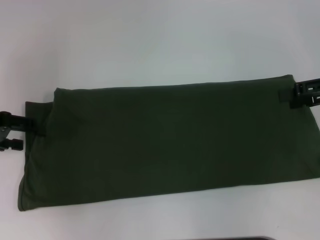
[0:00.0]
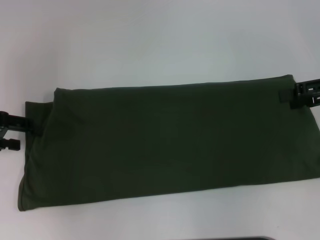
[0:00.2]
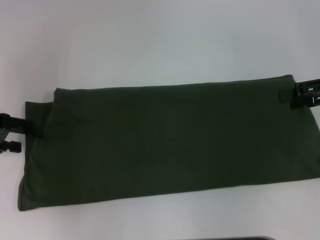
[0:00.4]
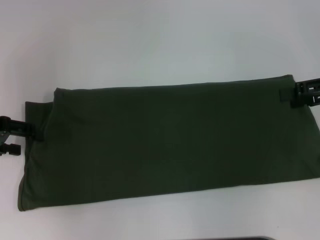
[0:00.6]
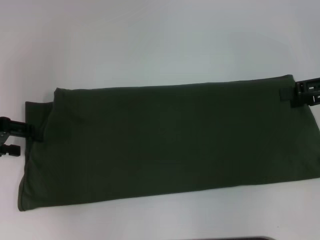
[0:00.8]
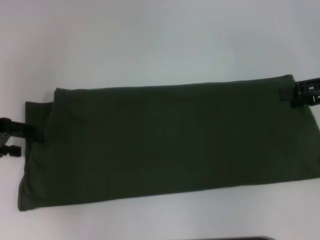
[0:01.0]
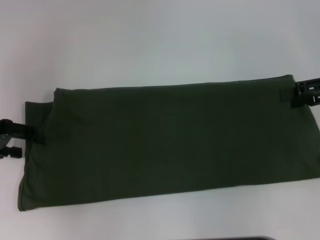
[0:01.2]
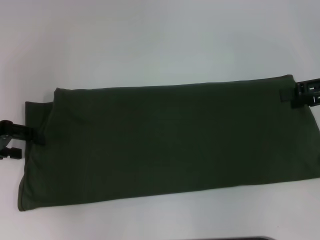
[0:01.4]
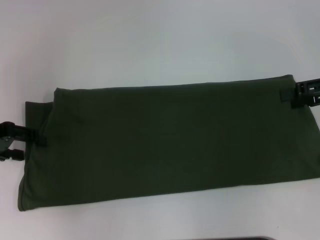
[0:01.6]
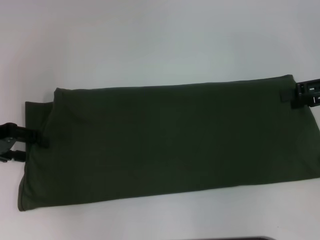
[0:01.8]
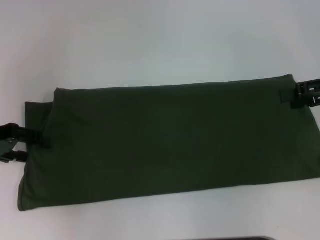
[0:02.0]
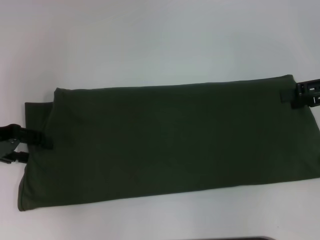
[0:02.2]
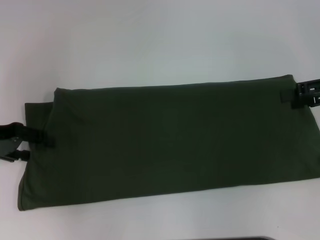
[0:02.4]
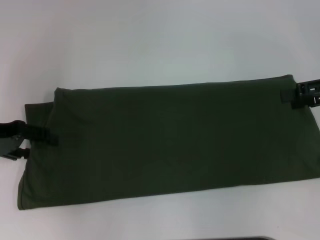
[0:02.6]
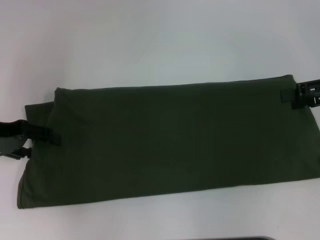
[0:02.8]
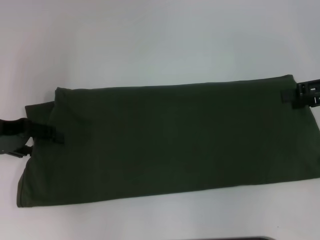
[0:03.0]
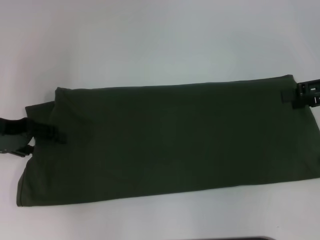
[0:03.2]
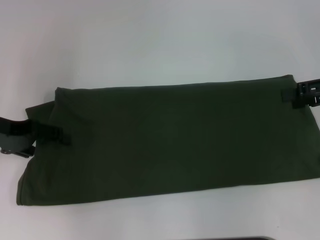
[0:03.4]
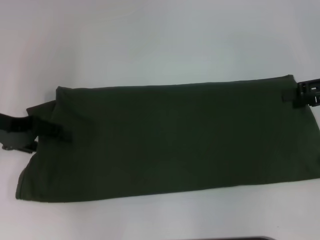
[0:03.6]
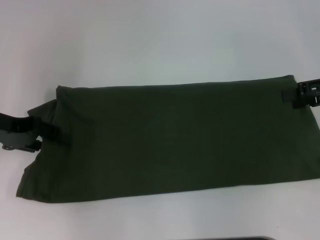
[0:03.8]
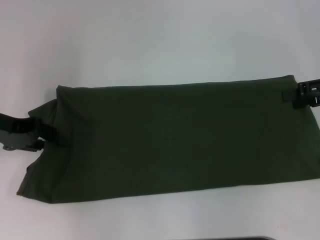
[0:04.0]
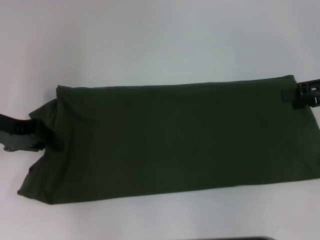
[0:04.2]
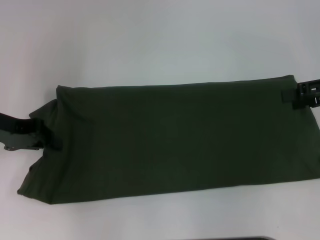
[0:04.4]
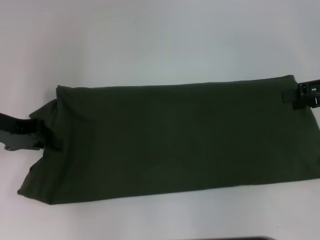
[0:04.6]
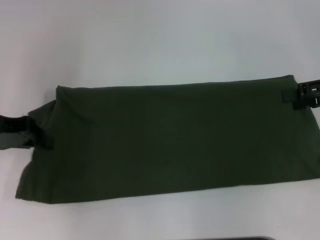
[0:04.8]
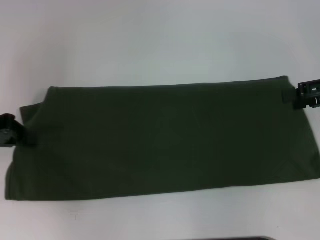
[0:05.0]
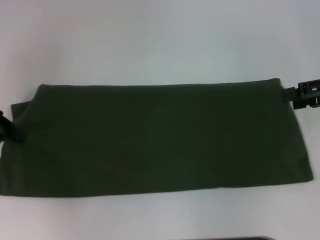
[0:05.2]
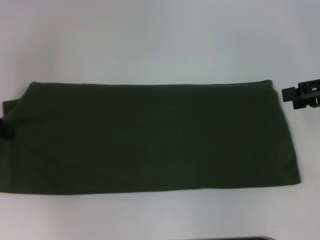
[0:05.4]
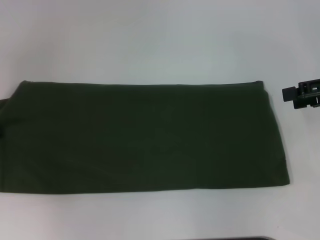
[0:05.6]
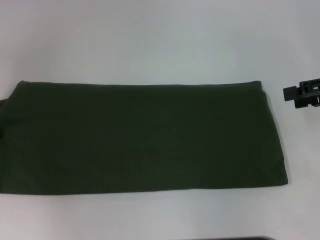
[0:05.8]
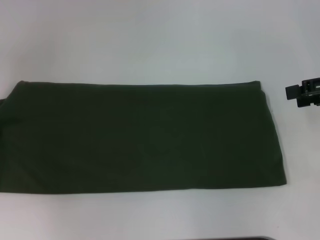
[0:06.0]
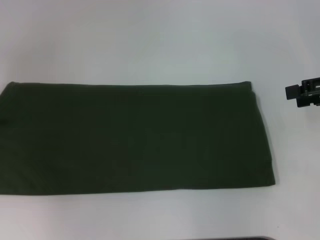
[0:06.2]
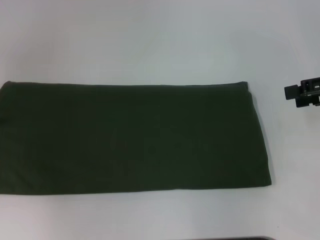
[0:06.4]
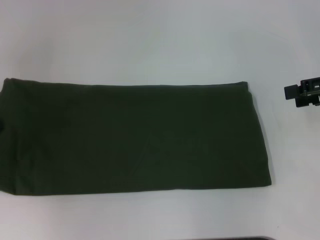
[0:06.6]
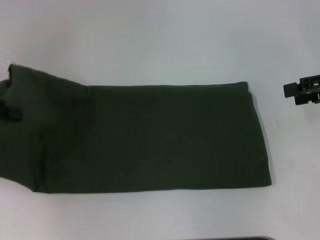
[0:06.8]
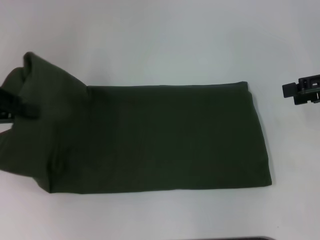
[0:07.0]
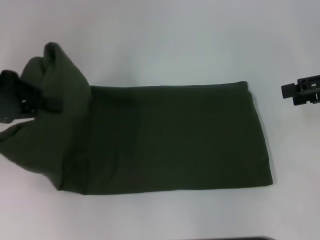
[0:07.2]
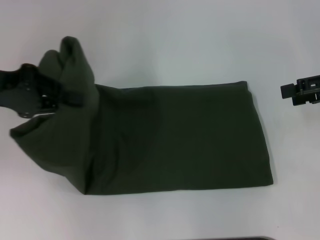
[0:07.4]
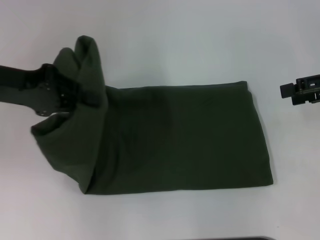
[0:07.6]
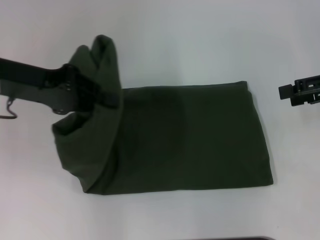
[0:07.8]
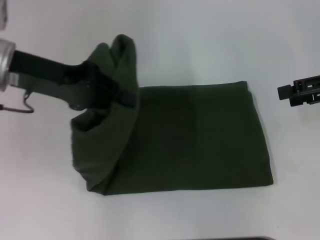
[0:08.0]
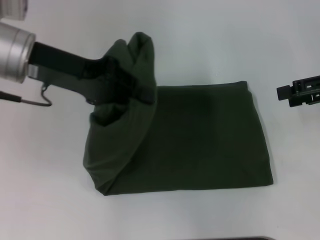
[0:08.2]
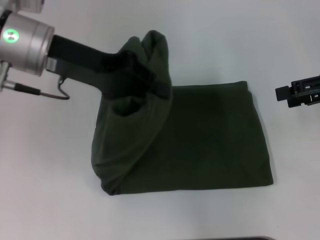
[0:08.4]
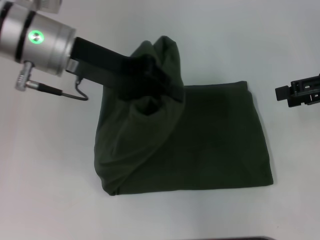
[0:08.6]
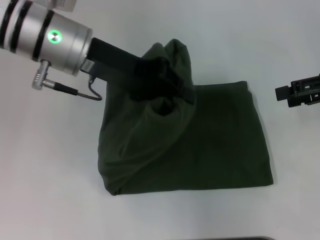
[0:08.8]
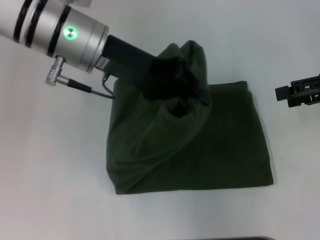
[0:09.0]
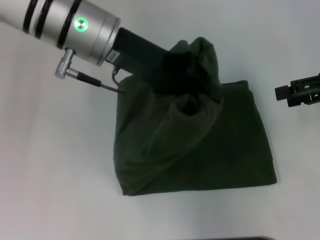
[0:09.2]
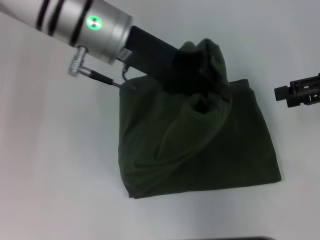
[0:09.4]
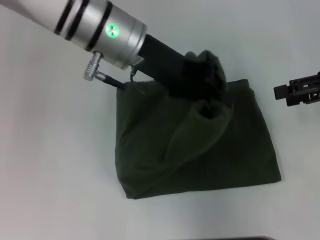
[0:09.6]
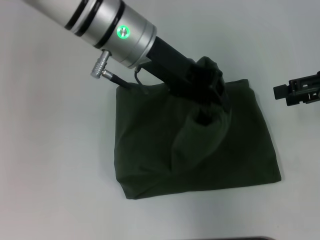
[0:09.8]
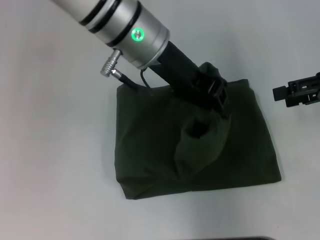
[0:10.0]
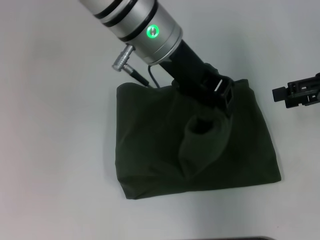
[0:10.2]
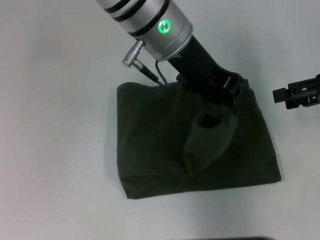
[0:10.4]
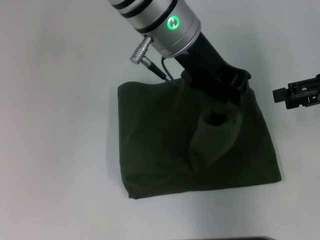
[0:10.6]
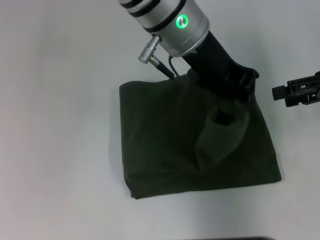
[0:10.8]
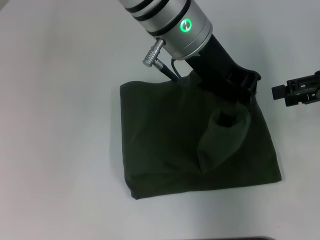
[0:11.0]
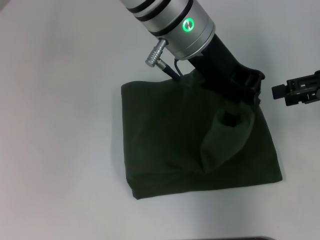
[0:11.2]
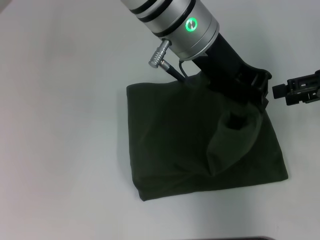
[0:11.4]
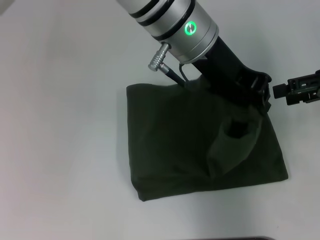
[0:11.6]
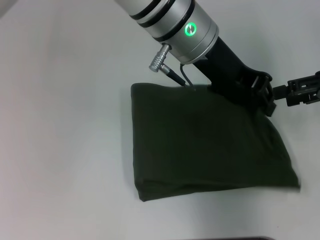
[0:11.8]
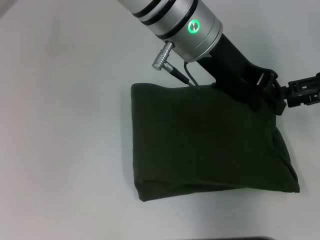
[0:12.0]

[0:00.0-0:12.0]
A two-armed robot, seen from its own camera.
Step, 0:00.0 to 0:11.8: Fold the clothes with your left hand.
0:00.0 to 0:01.6: Both grippers stay about where they are.
0:01.6 to 0:03.0: The grippers make only small movements.
0:03.0 to 0:04.4: The left gripper closes up.
0:04.4 to 0:06.0: The left gripper heads to the left, covering some 10 cm.
0:06.0 to 0:07.6: The left gripper shifts approximately 10 cm to the right.
0:07.6 to 0:09.0: The left gripper heads to the right, covering about 15 cm.
0:09.0 to 0:10.4: The left gripper shifts approximately 10 cm to the right.
0:10.4 to 0:12.0: The grippers move only a little.

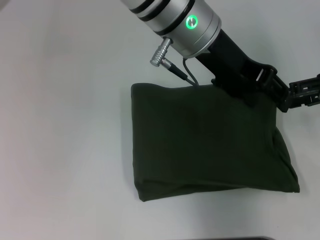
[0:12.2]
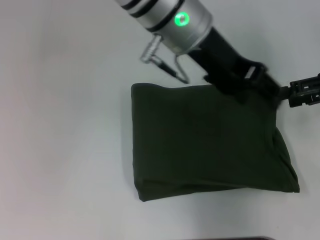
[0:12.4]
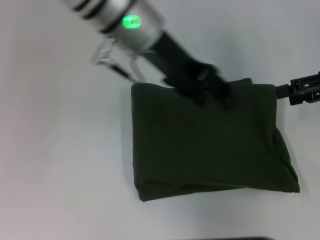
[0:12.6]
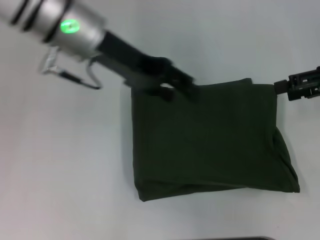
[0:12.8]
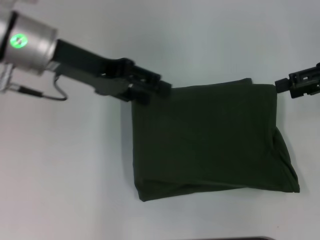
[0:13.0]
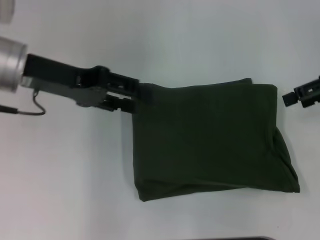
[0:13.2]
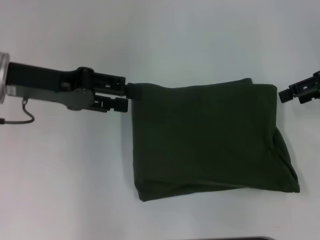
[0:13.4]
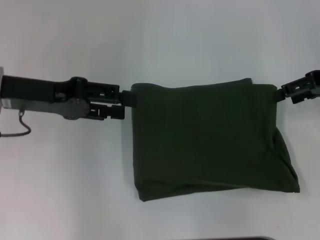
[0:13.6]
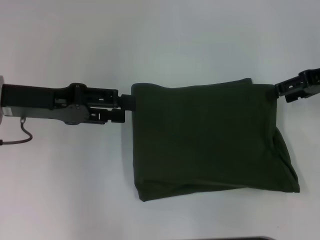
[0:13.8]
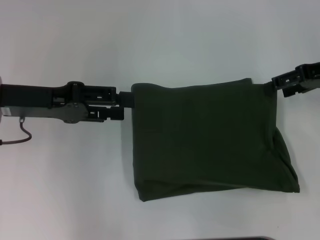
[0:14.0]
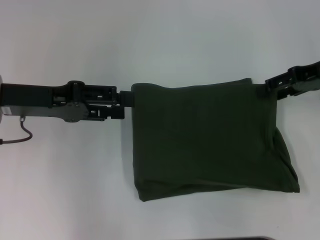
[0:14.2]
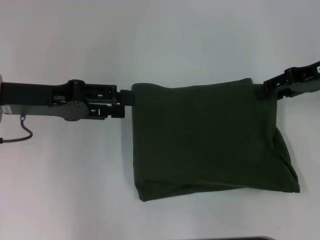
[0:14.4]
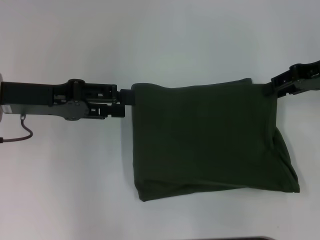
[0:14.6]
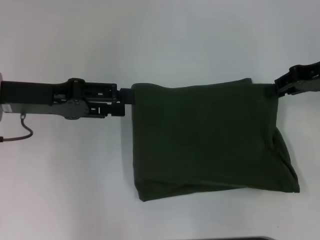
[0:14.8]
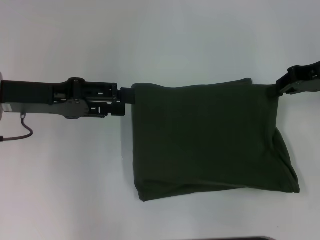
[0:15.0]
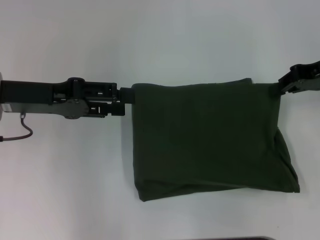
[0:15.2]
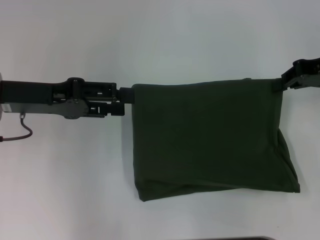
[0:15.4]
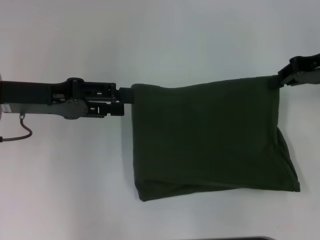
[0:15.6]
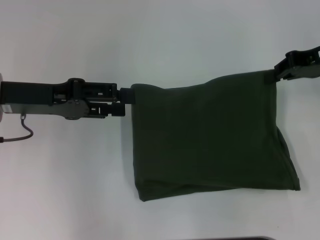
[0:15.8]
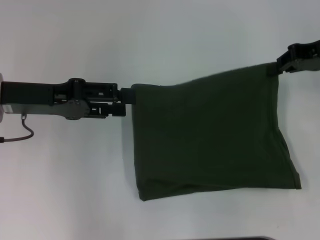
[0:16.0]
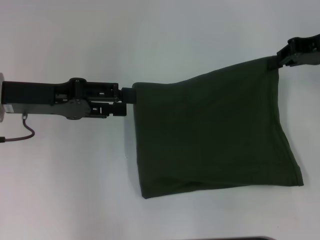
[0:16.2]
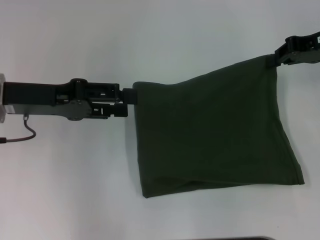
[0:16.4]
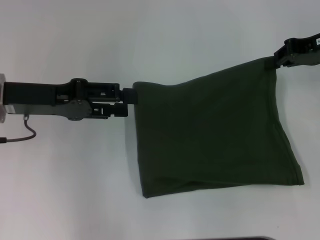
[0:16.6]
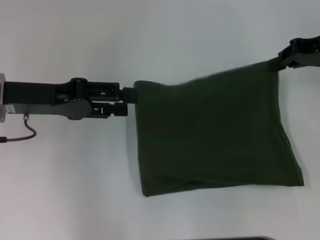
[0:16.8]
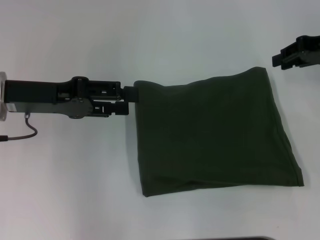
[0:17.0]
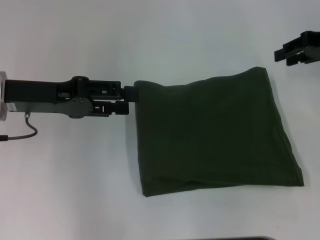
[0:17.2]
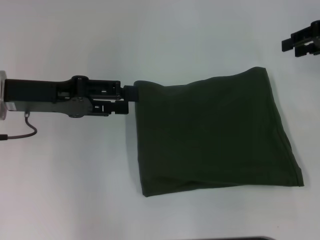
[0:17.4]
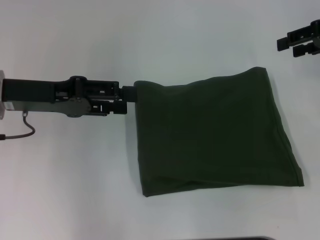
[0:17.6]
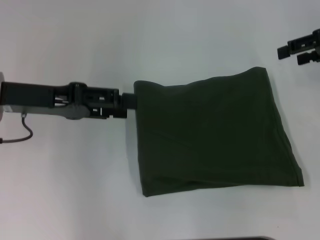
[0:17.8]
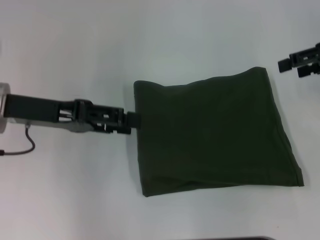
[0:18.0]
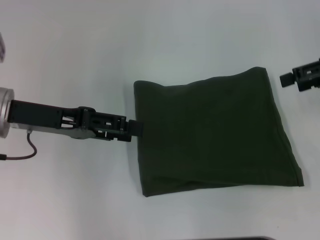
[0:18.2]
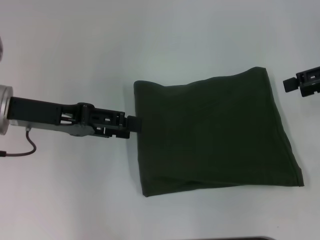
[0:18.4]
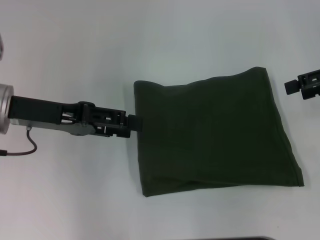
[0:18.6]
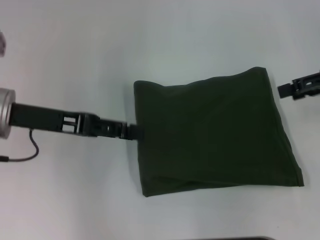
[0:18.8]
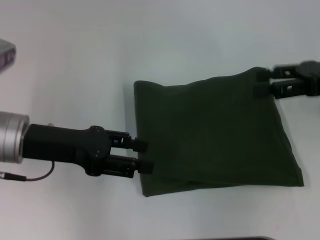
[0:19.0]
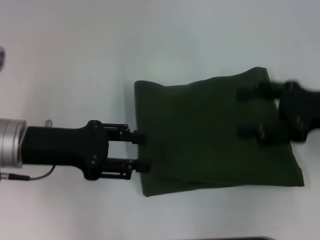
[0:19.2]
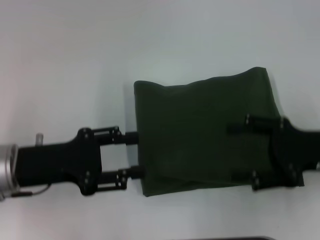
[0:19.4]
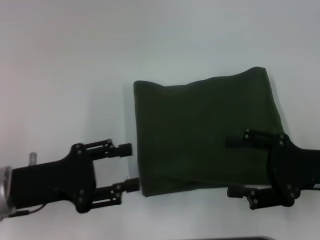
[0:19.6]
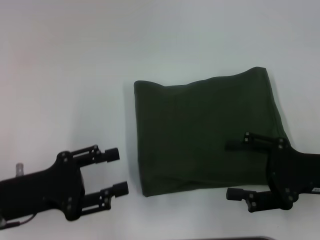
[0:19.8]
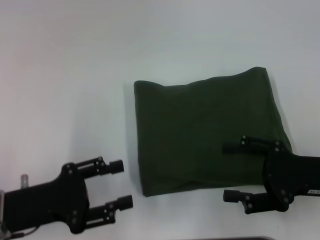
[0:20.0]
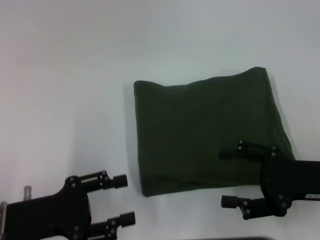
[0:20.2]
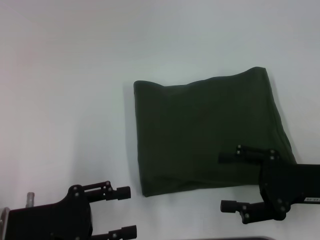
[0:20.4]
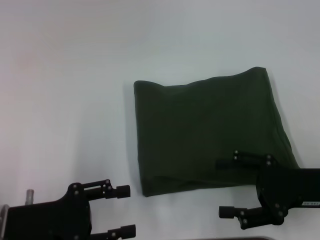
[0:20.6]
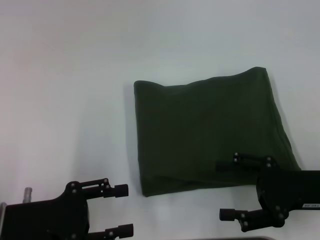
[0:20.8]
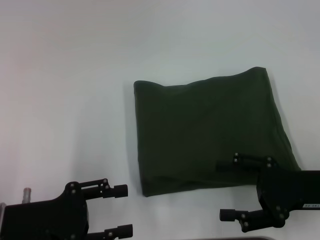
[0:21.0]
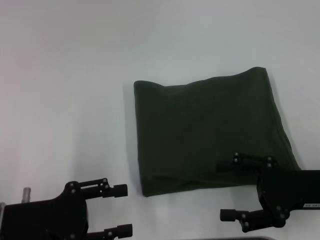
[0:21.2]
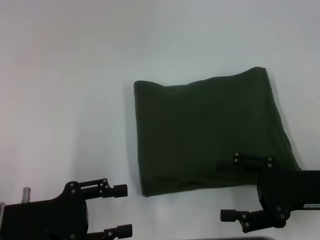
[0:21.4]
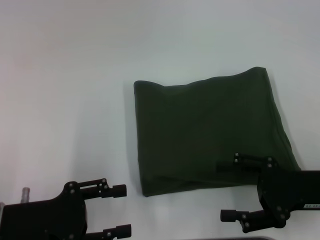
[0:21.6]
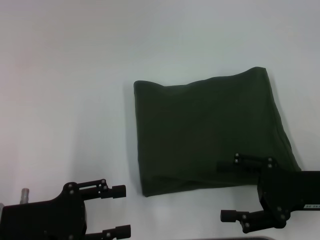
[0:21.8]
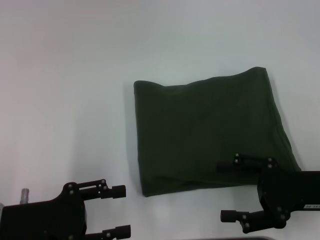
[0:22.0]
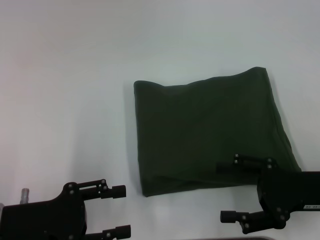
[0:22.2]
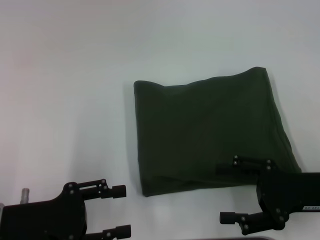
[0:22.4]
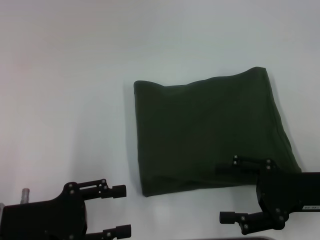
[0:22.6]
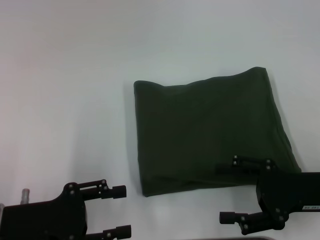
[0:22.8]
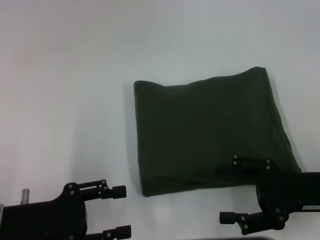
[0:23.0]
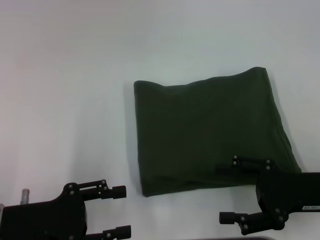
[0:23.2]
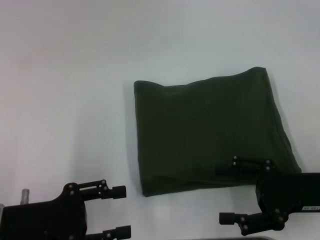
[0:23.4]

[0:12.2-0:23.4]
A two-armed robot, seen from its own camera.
0:12.2 to 0:13.8: The left gripper travels to the left by about 25 cm.
0:13.8 to 0:15.4: The right gripper closes up.
0:15.4 to 0:17.0: There are only small adjustments of the grippers.
0:17.0 to 0:18.6: The right gripper changes place by about 5 cm, and opens up.
0:18.6 to 0:20.2: The right gripper travels backward, downward and to the left by approximately 20 cm, while the left gripper shifts approximately 15 cm backward and downward.
0:20.2 to 0:23.4: Neither gripper changes place.
